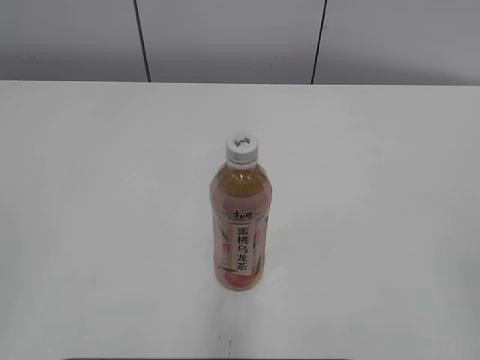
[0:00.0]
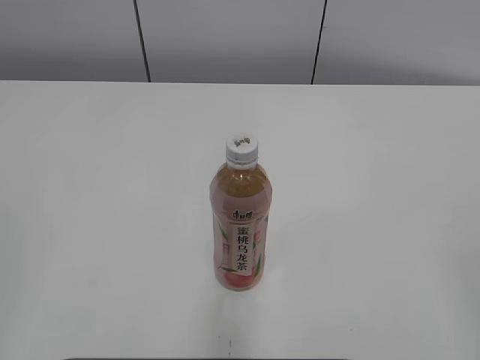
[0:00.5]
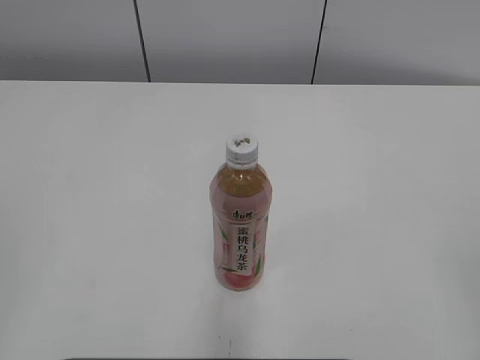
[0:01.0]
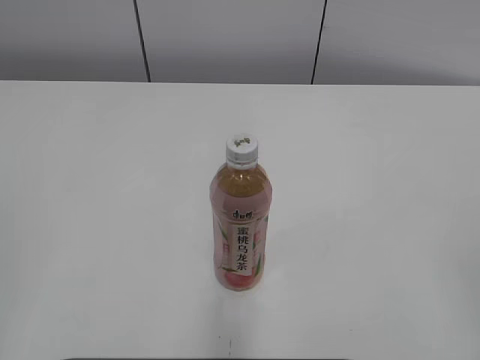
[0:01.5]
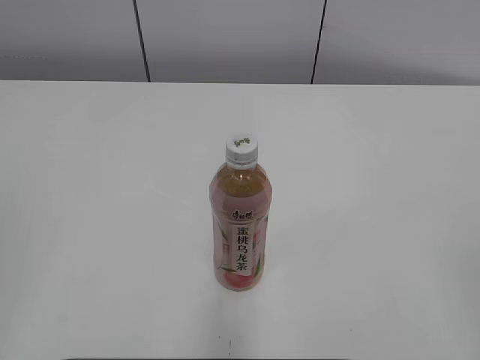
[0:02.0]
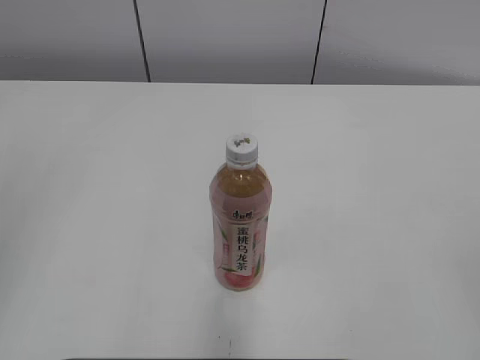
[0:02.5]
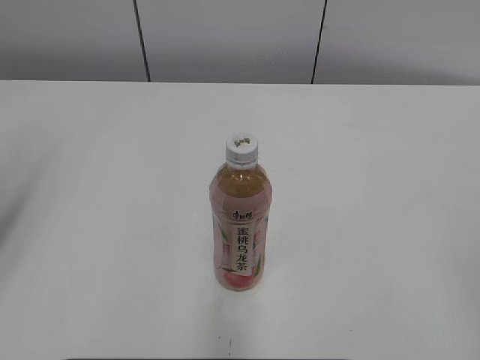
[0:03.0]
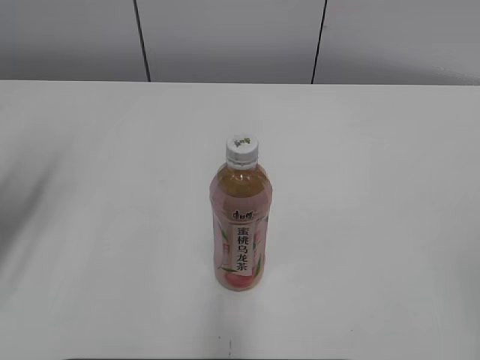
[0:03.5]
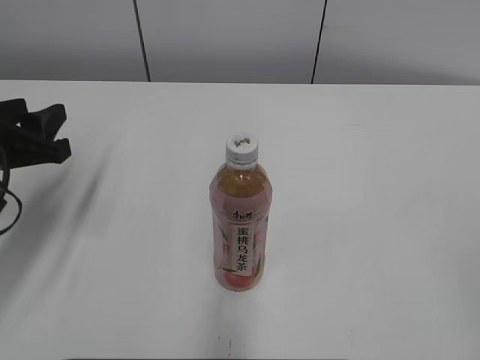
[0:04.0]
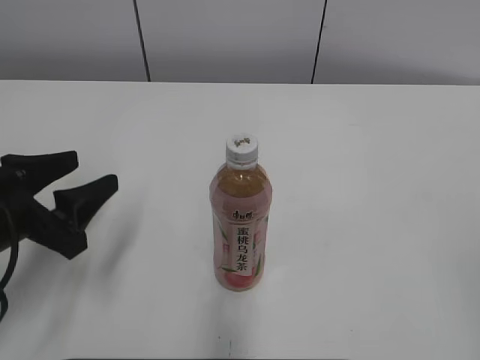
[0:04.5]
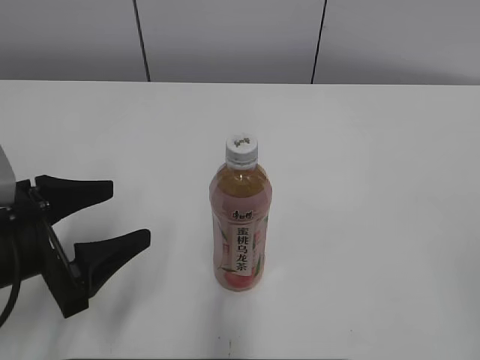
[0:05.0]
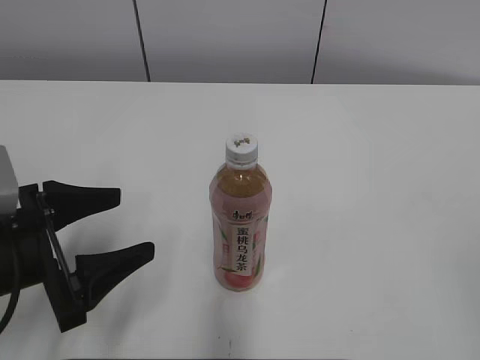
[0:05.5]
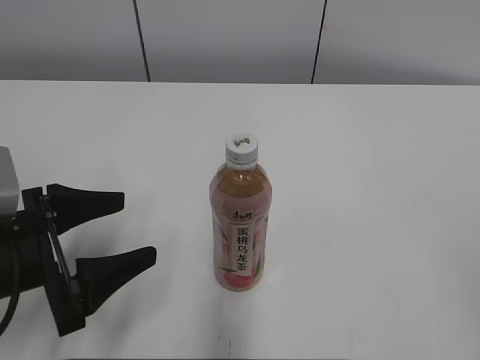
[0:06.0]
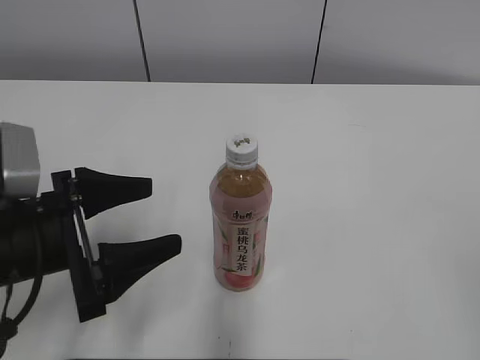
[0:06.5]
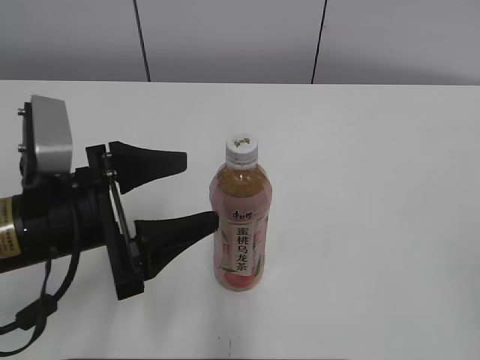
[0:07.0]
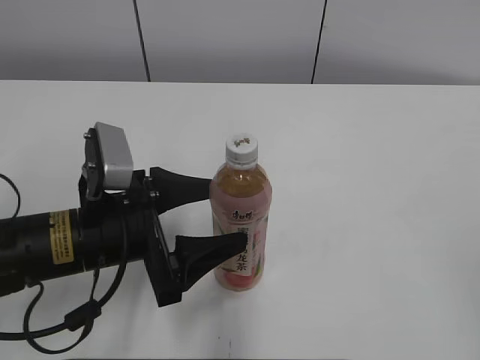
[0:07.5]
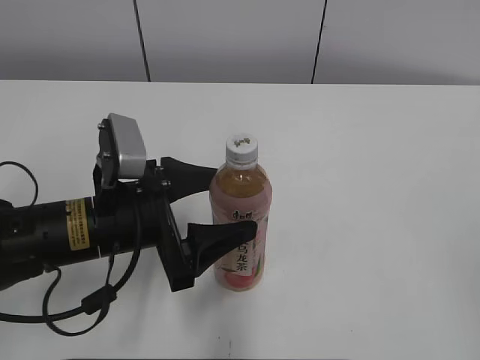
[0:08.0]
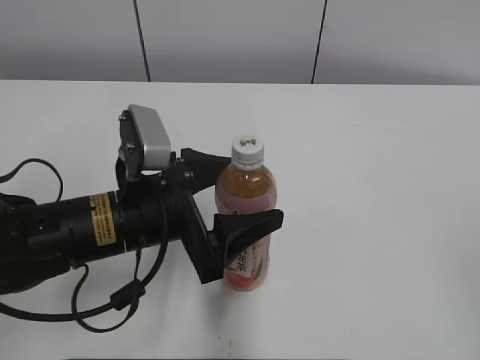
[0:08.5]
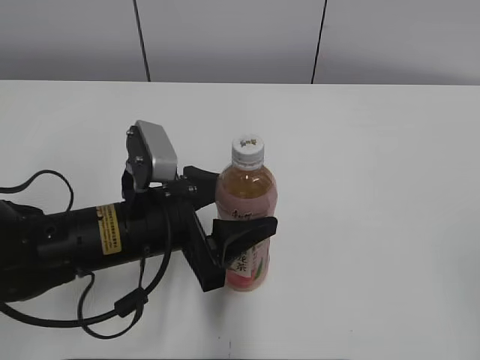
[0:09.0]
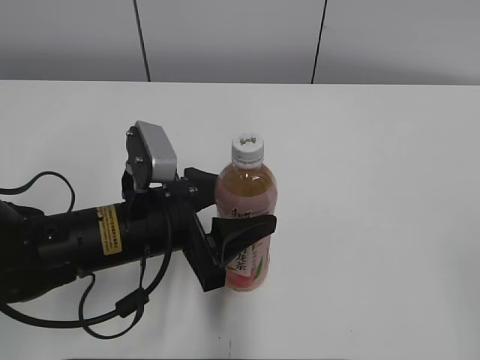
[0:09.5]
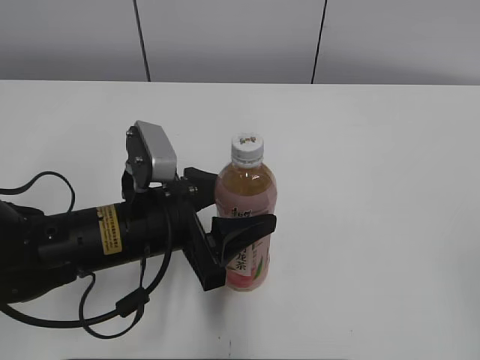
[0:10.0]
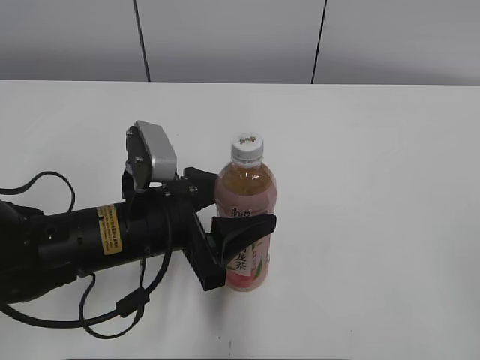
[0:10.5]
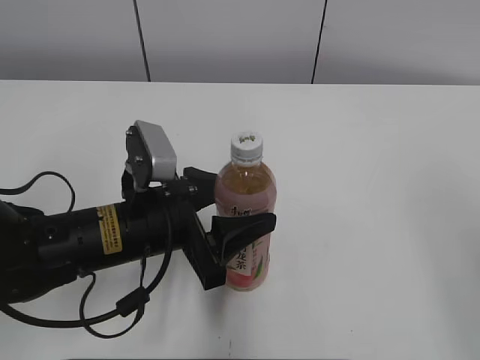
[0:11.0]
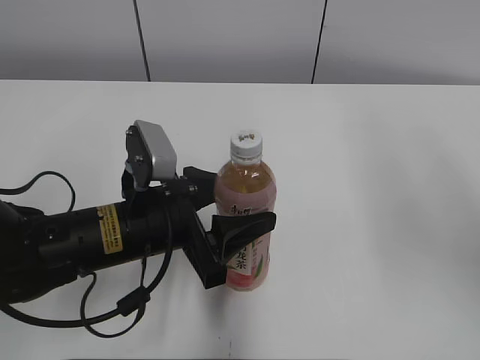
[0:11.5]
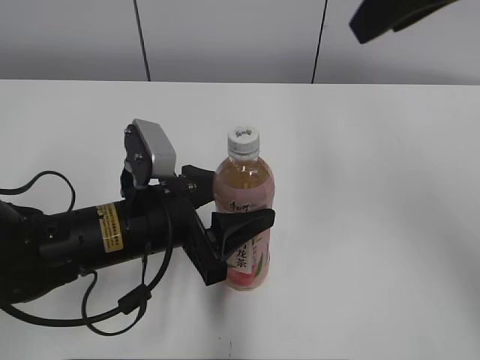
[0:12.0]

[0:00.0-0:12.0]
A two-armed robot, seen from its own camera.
Step, 0:00.0 to 0:09.5: Grasp the bottle and move it to the center of the table with the left gripper.
0:02.0 to 0:04.0: The left gripper heads forward and downward, covering roughly 30 cm.
0:04.0 to 0:06.0: The left gripper travels backward by approximately 10 cm, and opens its fingers.
0:06.0 to 0:08.0: The left gripper goes about 10 cm to the right and forward.
0:08.0 to 0:10.0: The left gripper closes.
0:10.0 to 0:12.0: The right gripper heads forward, to the left and upward, covering roughly 35 cm, and closes up.

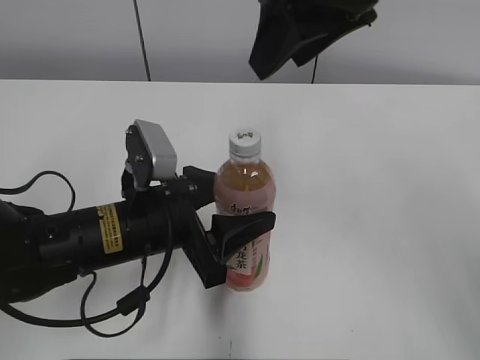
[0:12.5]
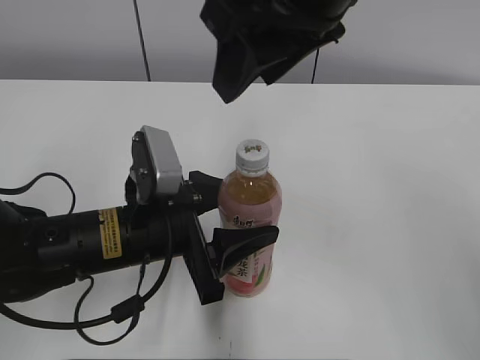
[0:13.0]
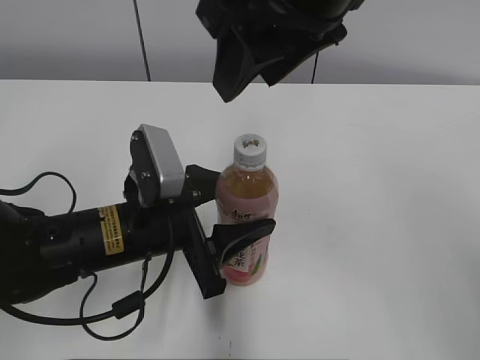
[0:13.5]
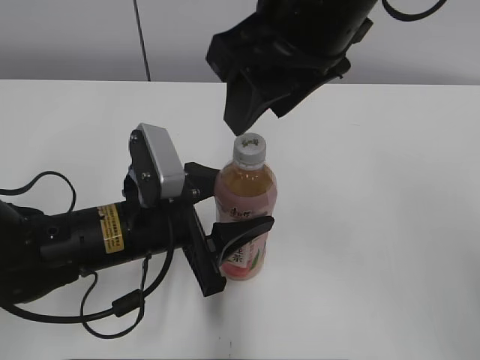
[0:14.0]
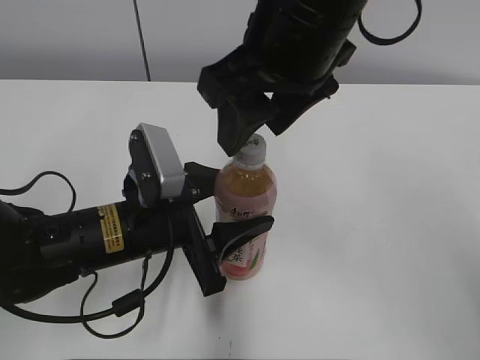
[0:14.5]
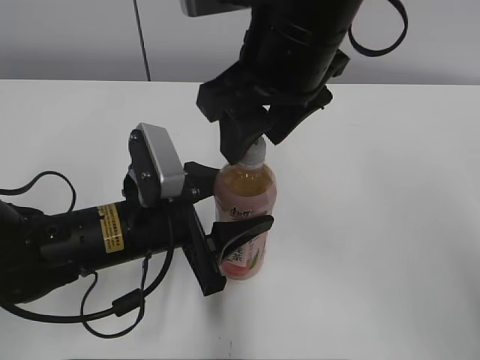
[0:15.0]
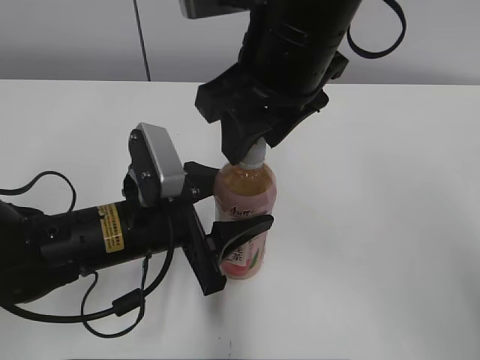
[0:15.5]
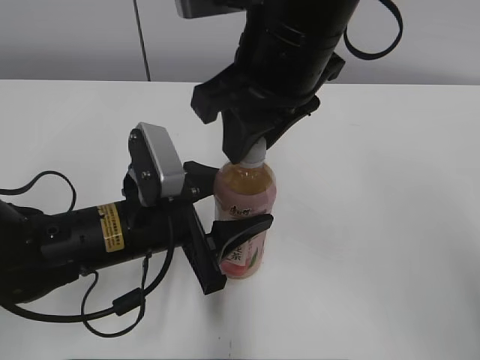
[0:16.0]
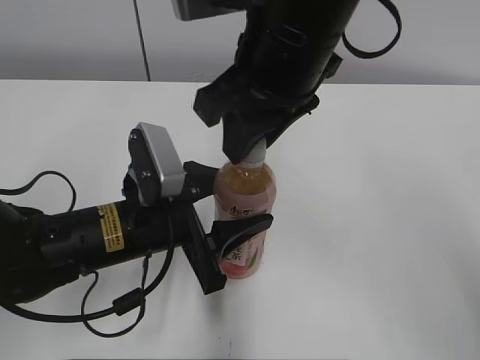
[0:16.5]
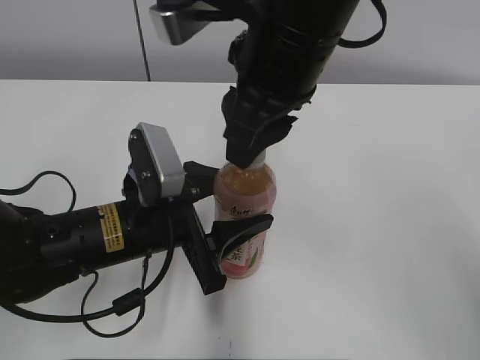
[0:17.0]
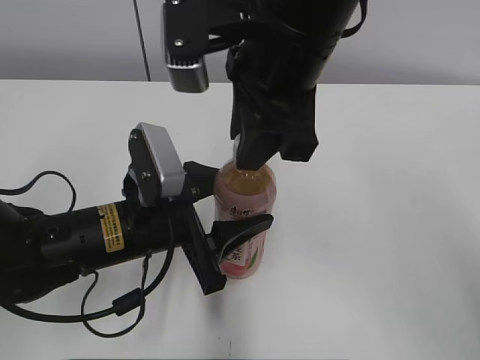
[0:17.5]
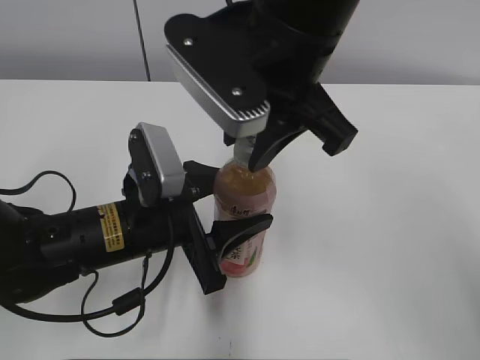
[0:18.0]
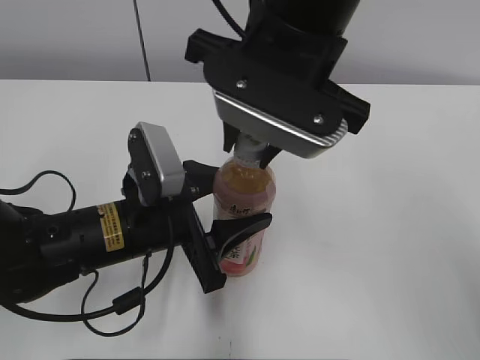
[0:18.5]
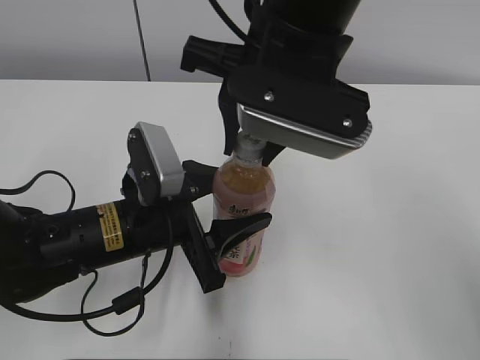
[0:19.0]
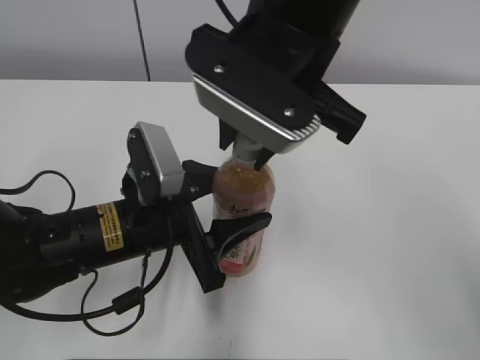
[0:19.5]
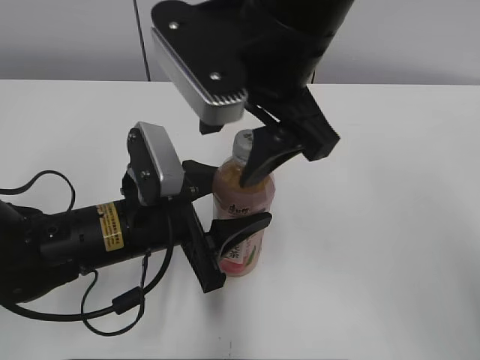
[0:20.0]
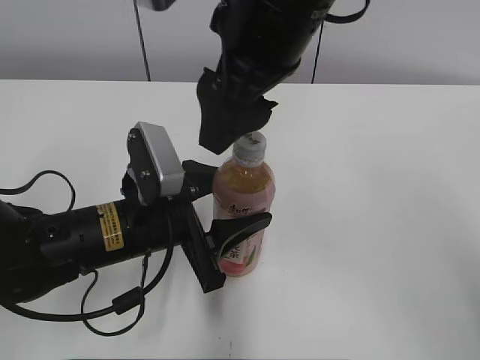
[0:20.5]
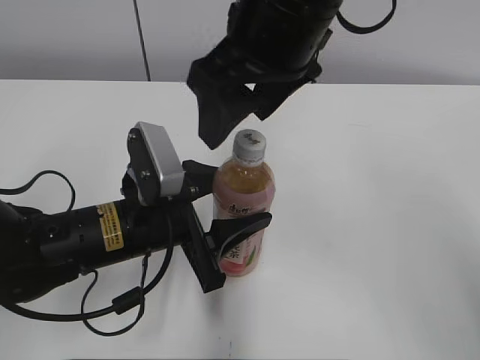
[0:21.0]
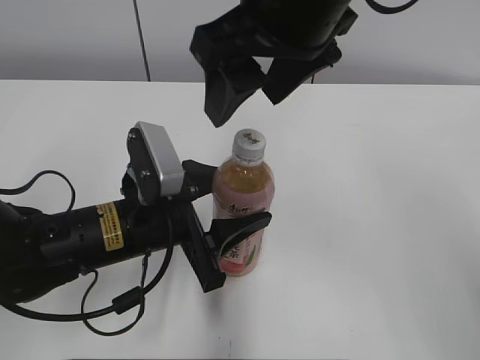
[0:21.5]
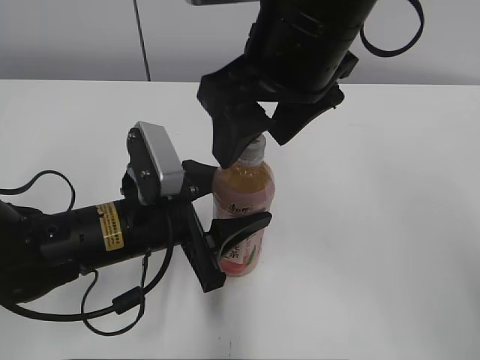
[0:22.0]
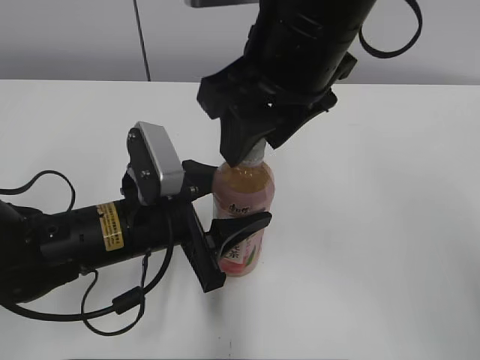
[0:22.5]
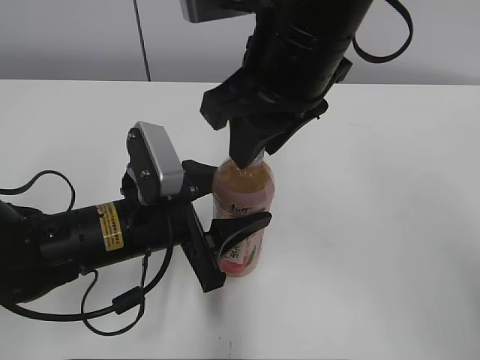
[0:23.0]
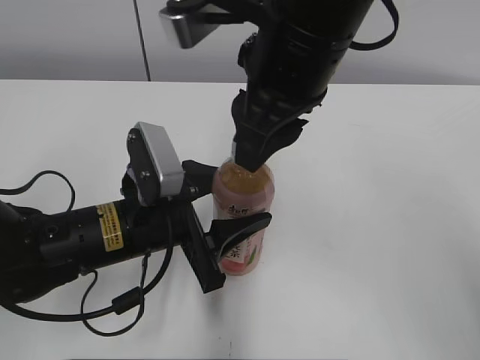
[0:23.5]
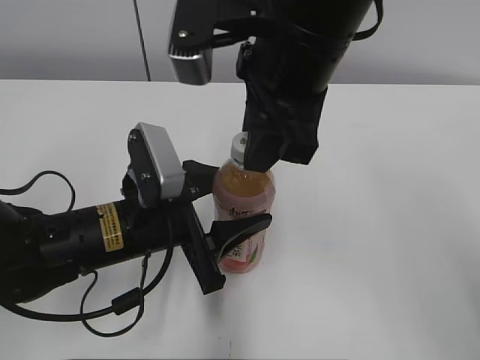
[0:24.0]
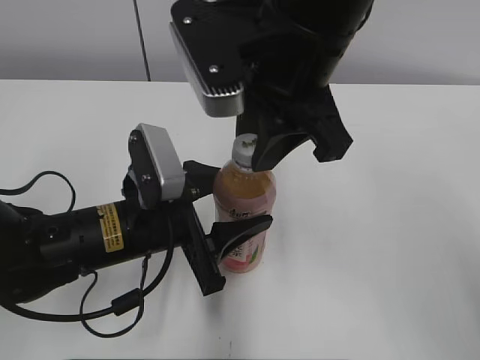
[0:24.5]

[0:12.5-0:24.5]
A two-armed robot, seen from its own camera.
0:12.5 to 0:14.5: The right gripper changes place by about 5 cm.
0:14.5 to 0:16.5: The right gripper closes up.
0:18.5 to 0:20.5: The right gripper opens its fingers.
0:20.5 to 0:22.5: The right gripper closes its fingers.
0:22.5 to 0:24.5: The right gripper closes.

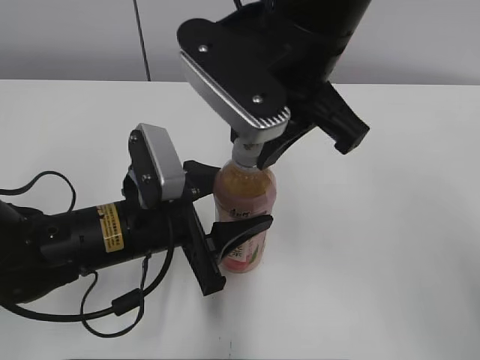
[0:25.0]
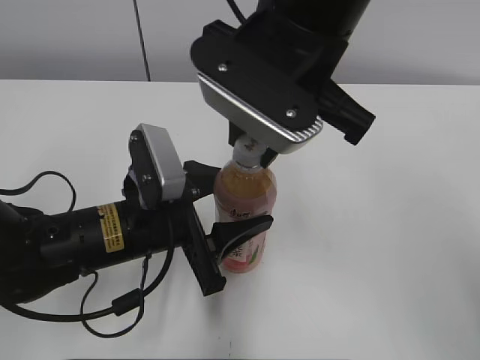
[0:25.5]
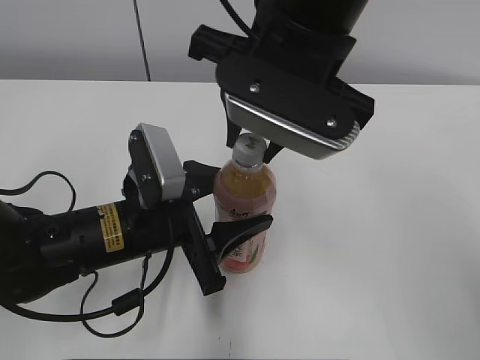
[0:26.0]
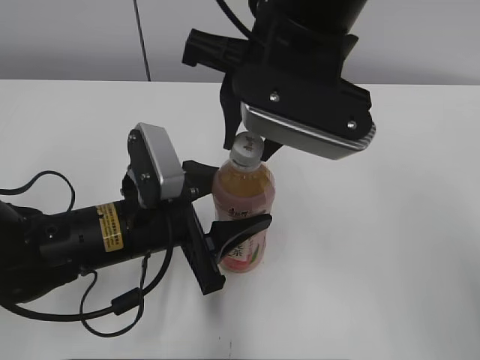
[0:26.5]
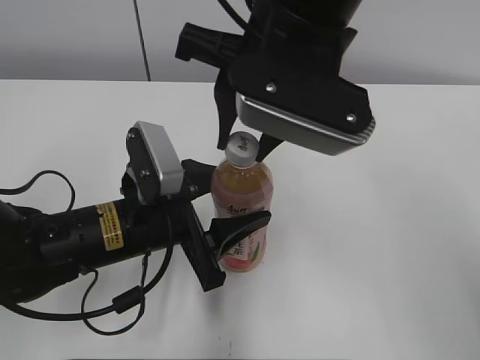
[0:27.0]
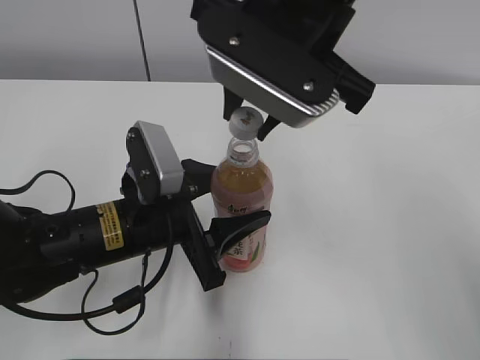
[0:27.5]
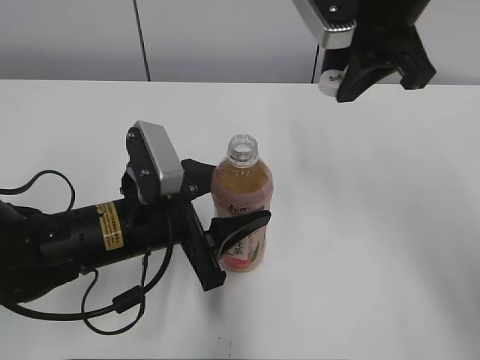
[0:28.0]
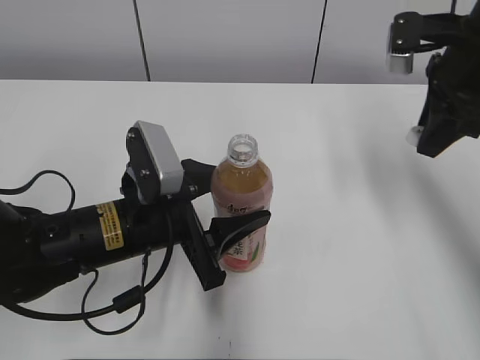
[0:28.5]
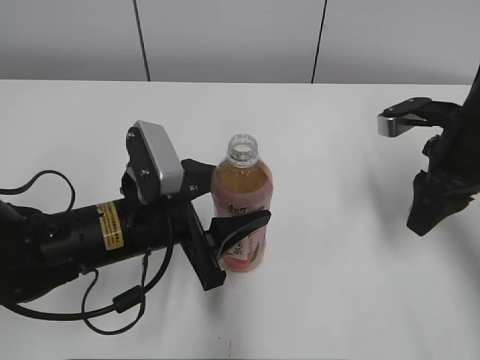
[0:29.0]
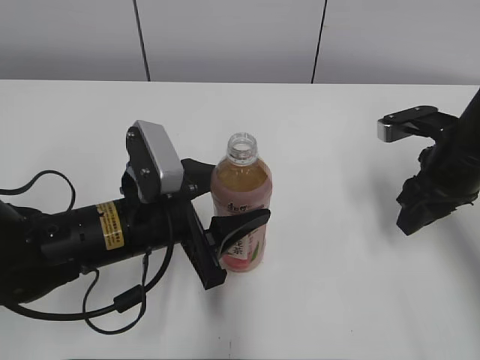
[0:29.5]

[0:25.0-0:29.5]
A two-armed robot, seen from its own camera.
Step, 0:25.0 to 0:27.0: Unscrew the bottle cap with the right gripper while holding the bottle with the left gripper.
0:27.0 to 0:29.5: The right gripper moves to the right and downward, approximately 25 cm.
